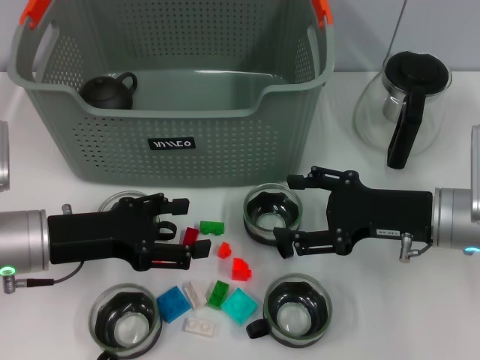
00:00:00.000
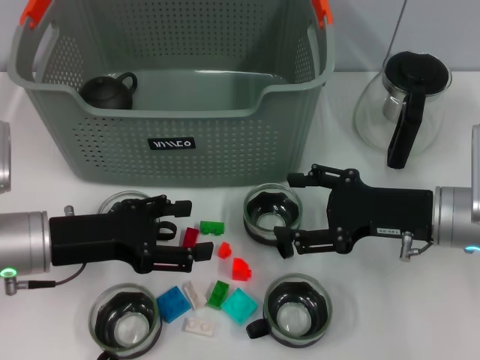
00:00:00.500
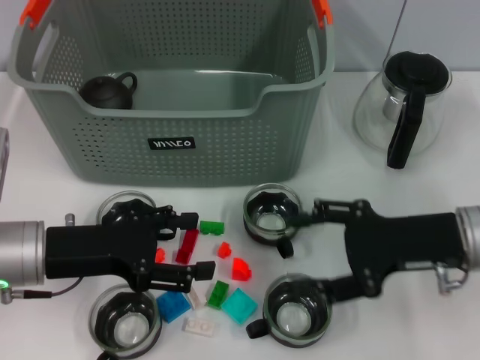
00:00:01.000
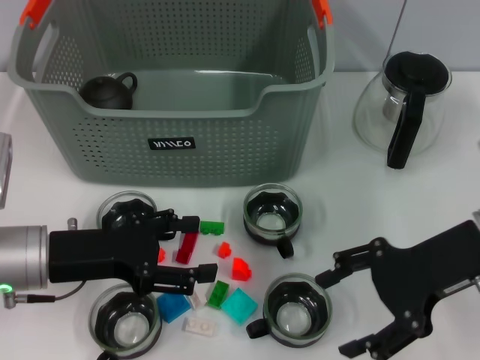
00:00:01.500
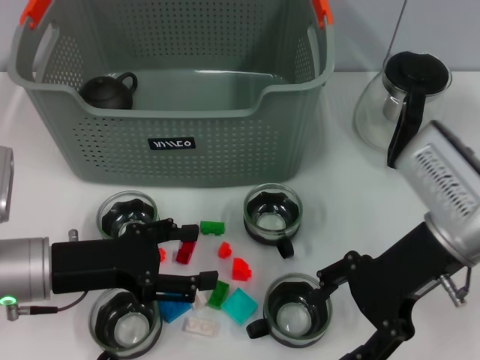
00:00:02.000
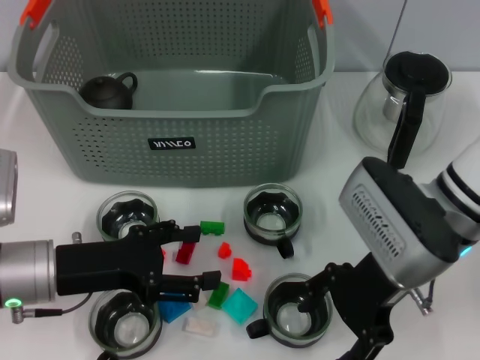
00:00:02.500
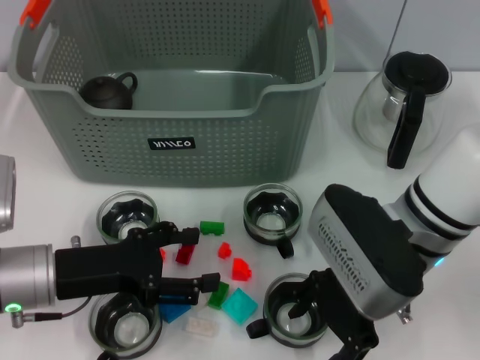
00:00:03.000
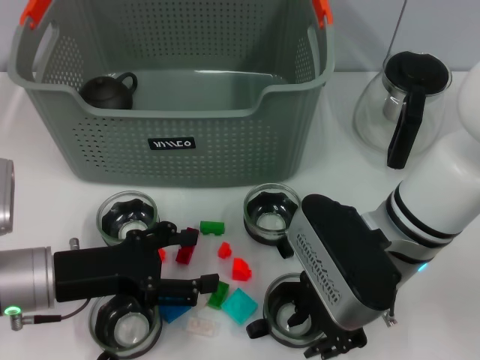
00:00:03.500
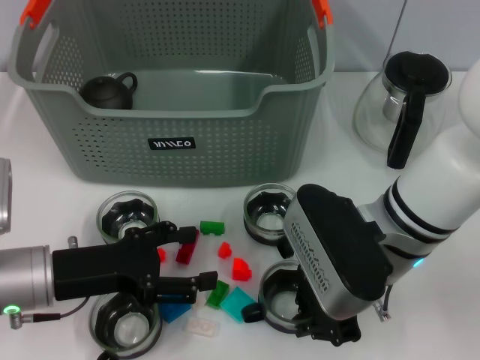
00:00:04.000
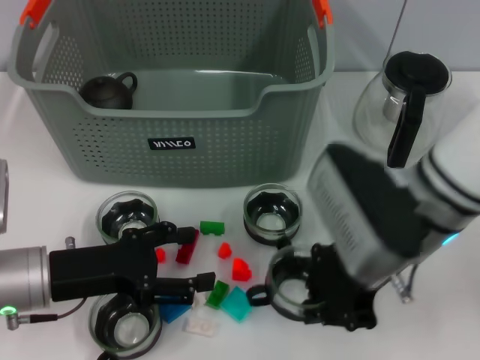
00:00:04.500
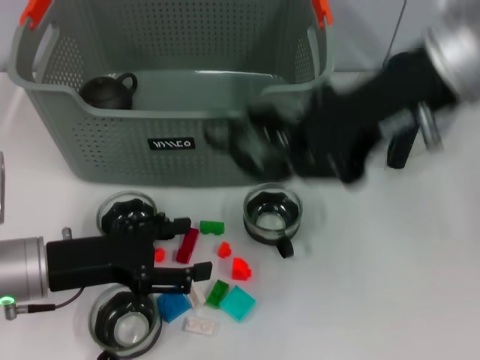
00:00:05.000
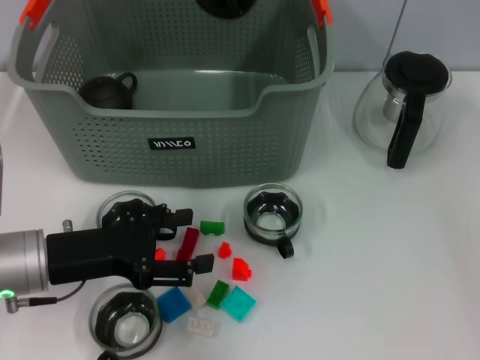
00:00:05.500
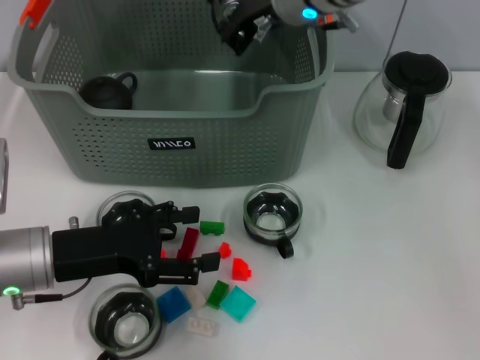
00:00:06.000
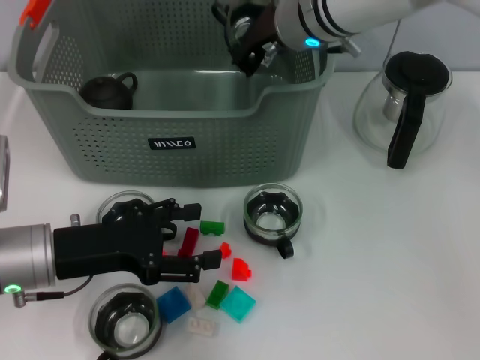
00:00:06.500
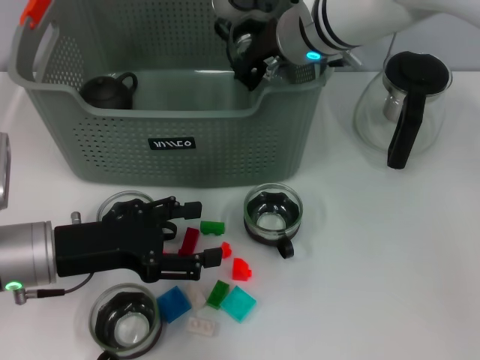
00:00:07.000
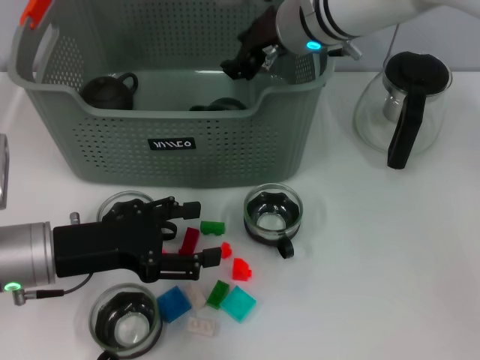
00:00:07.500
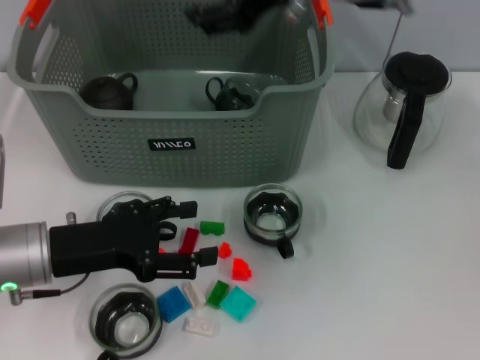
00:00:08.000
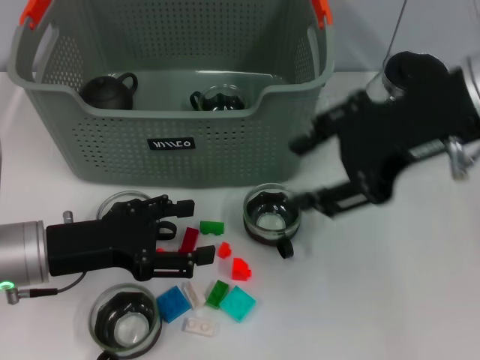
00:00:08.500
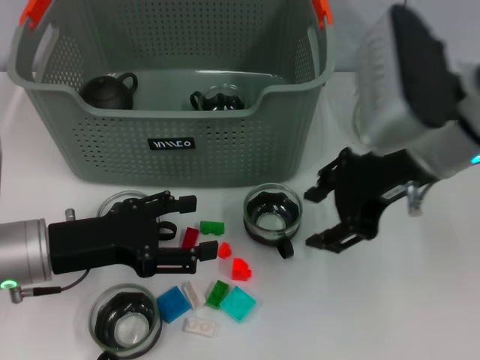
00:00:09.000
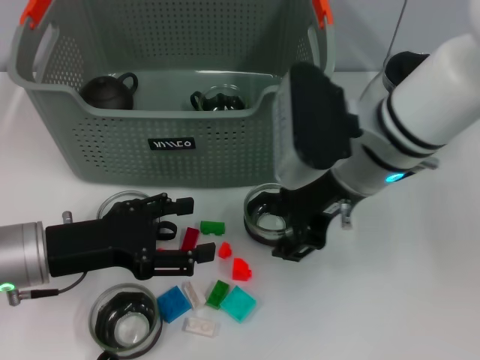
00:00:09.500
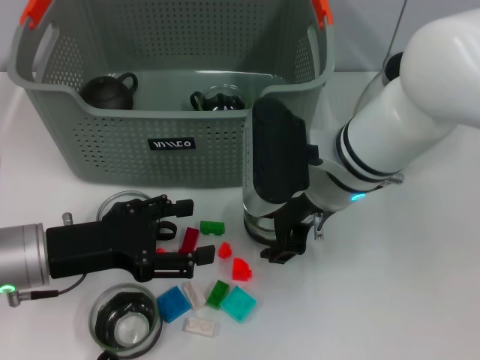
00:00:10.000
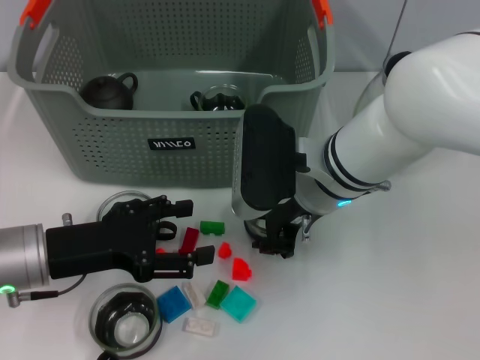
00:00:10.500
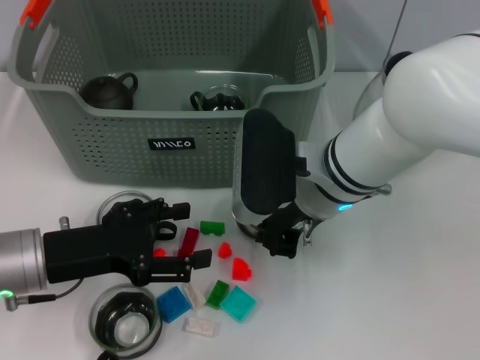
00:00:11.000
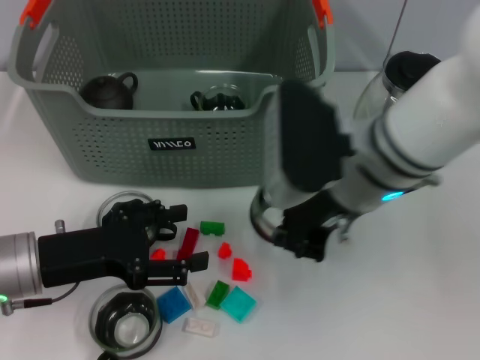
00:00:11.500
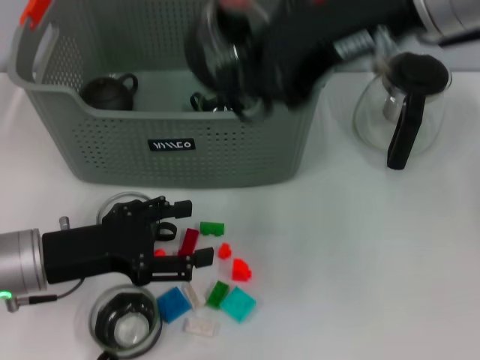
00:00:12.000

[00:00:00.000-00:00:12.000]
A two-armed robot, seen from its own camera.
Task of the whole recording: pick up the teacup on the table and place it into the storage bin, pick up the block on the table and place it into the storage bin.
Step, 00:00:00.000 to 00:00:03.500: Grasp the cup with right gripper.
Step, 00:00:04.000 to 00:00:08.000: Place the cup in the storage box with right gripper.
Step, 00:00:08.500 to 00:00:10.500: Grasp the cup with right gripper.
00:00:00.000 to 00:00:02.000: The right gripper moves upward, about 5 cm.
00:00:02.000 to 00:00:04.000: The right gripper shifts about 10 cm to the left, and closes up.
00:00:04.000 to 00:00:06.000: The right gripper heads forward and upward, covering some 20 cm.
00:00:06.000 to 00:00:08.000: The right gripper heads backward and upward, covering approximately 10 cm, and opens up.
00:00:08.000 to 00:00:10.000: The right gripper shifts approximately 15 cm downward.
00:00:10.000 to 00:00:12.000: The right gripper travels upward by about 20 cm, and closes up.

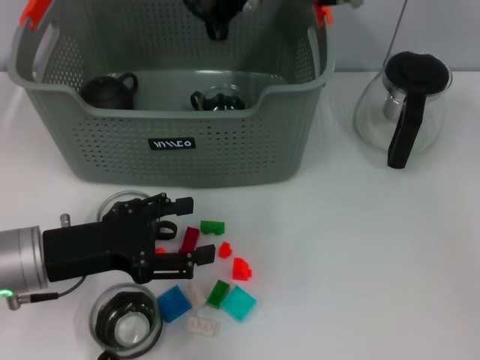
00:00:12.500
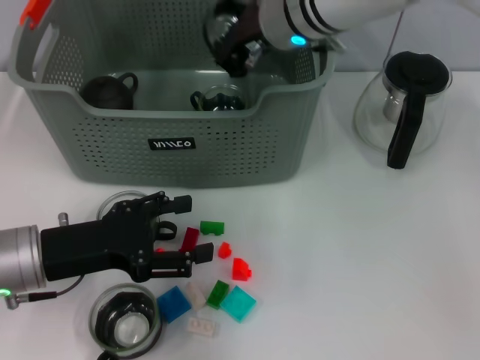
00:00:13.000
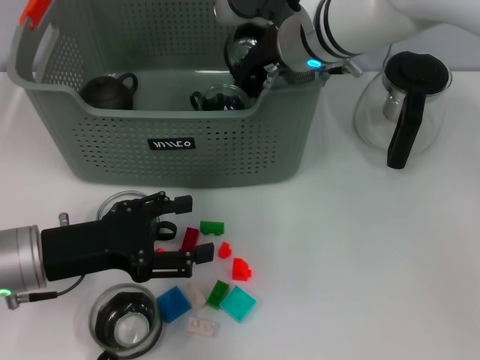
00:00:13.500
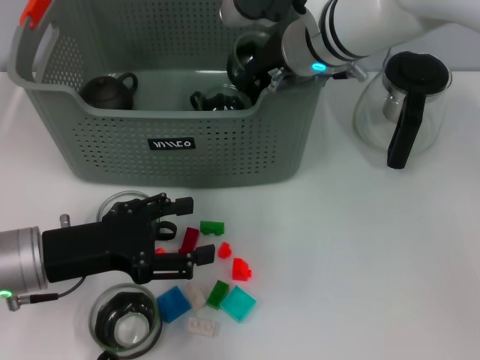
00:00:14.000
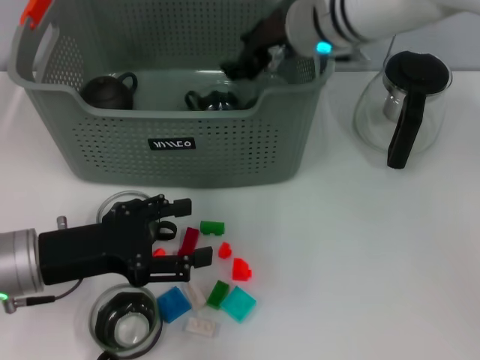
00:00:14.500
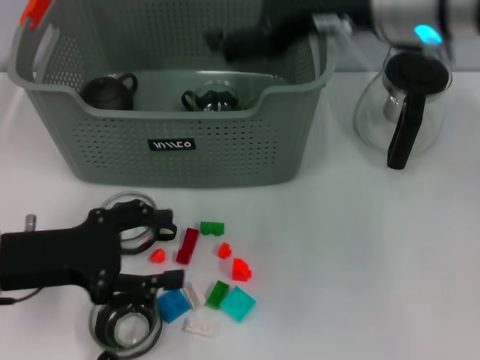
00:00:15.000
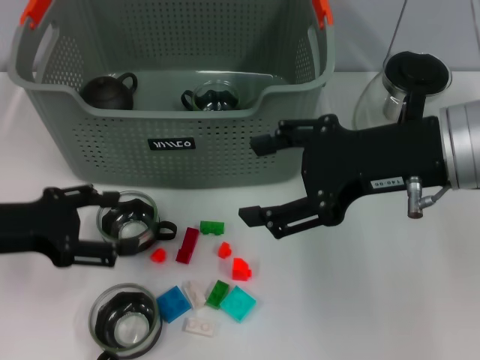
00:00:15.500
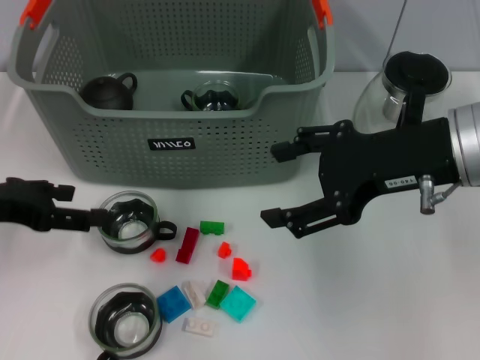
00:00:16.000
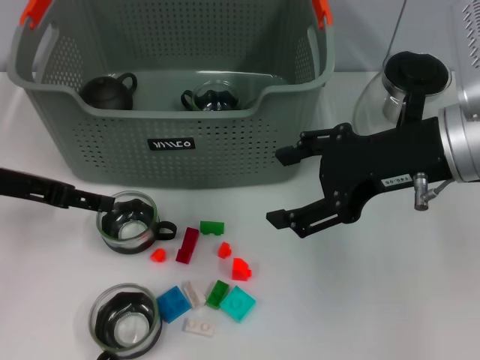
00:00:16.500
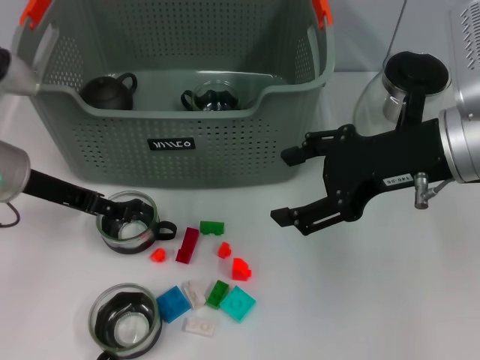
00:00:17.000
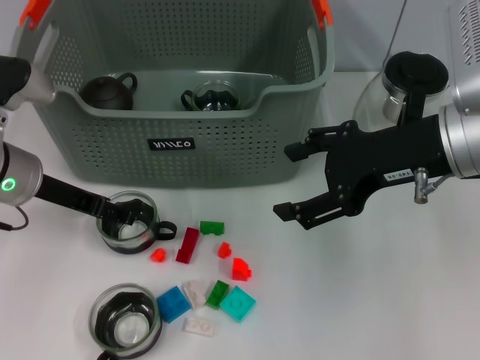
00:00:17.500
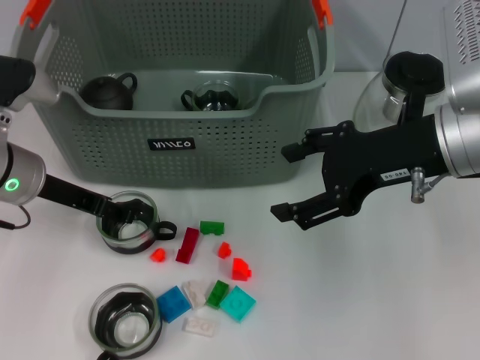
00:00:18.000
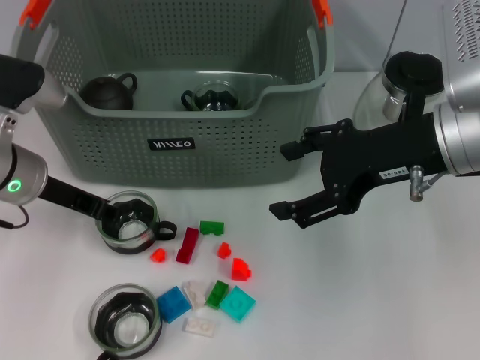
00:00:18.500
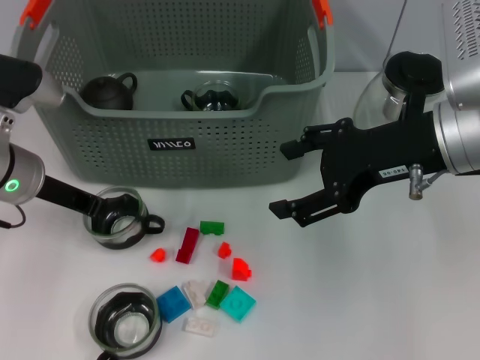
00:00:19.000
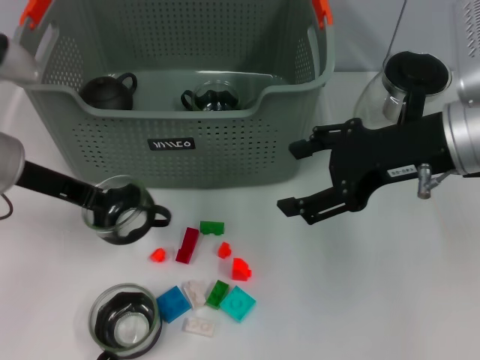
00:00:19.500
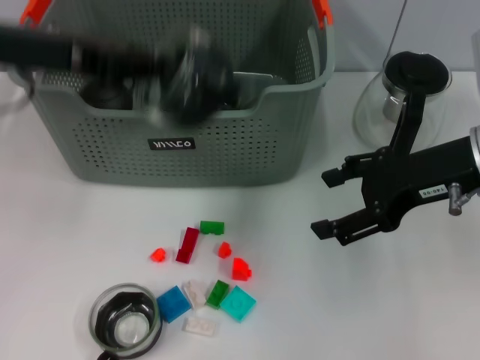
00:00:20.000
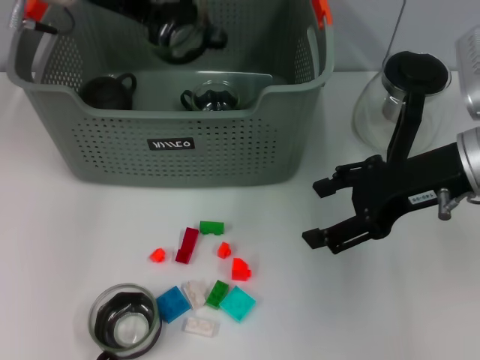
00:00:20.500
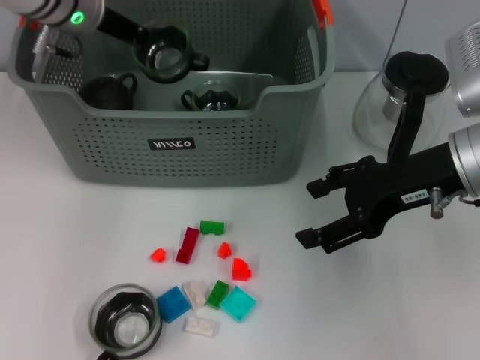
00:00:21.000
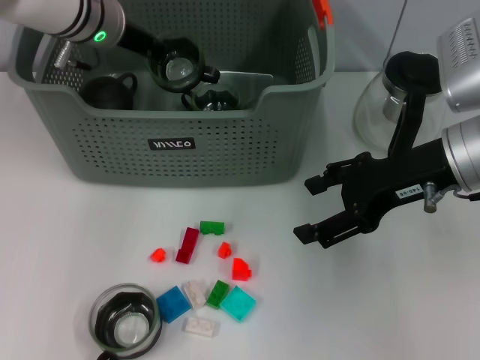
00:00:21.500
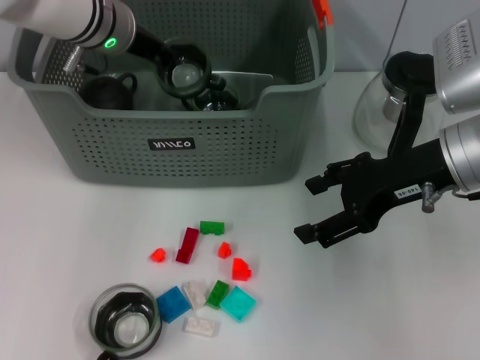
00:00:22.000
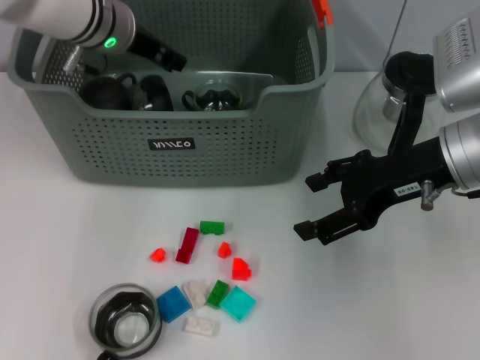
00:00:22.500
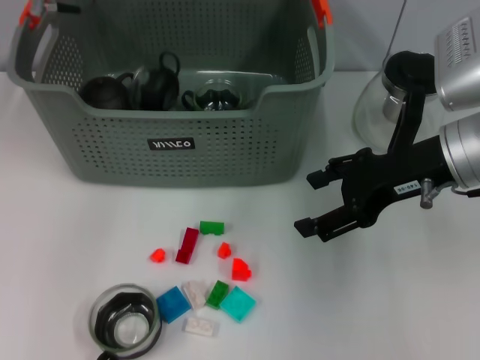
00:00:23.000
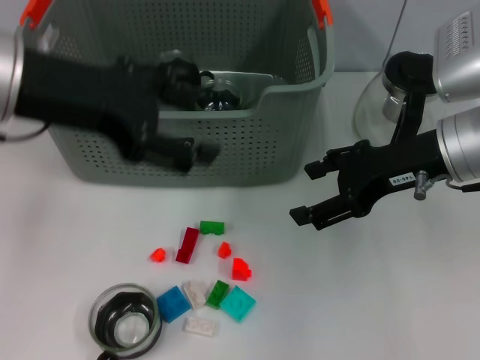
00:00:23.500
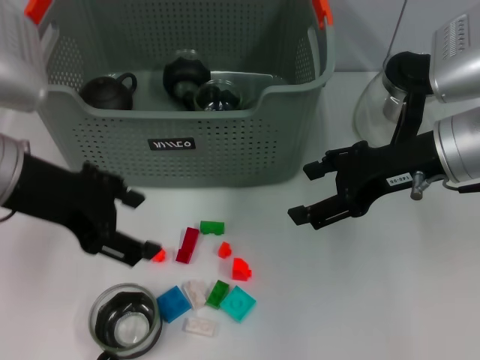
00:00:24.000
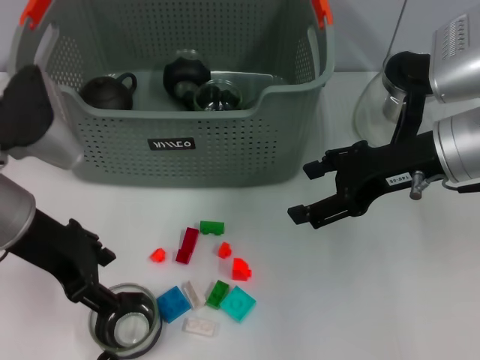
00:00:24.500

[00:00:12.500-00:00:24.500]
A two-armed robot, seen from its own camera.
Task of the whole recording: pick up the teacup on the table and place it into the storage bin, pick up the block on the table and place it into the storage bin.
Step, 00:00:12.500 to 00:00:14.500: Place the cup in the storage box with right gripper.
Step, 00:00:15.000 to 00:00:18.500: Grasp the cup with left gripper.
Step, 00:00:19.500 to 00:00:22.500: Place the cup in the storage box with left gripper.
00:00:12.500 to 00:00:14.500: The right gripper shifts roughly 5 cm downward, and opens its fingers.
00:00:14.500 to 00:00:16.500: The right gripper heads backward and to the right, covering some 20 cm, and opens, while the left gripper goes approximately 10 cm upward and forward.
00:00:16.500 to 00:00:18.500: The left gripper changes place by about 5 cm, and closes.
00:00:18.500 to 00:00:20.500: The left gripper shifts roughly 15 cm upward and forward, and closes up.
00:00:20.500 to 00:00:22.500: The left gripper goes approximately 5 cm downward, and opens up.
00:00:22.500 to 00:00:24.500: The left gripper heads backward, covering roughly 20 cm, and opens.

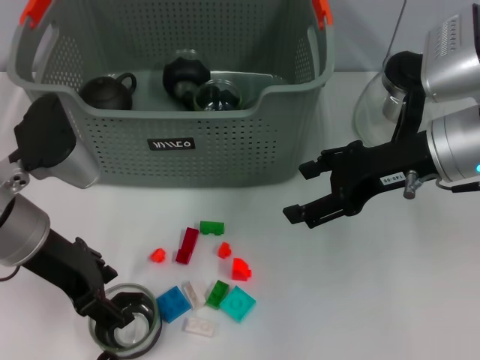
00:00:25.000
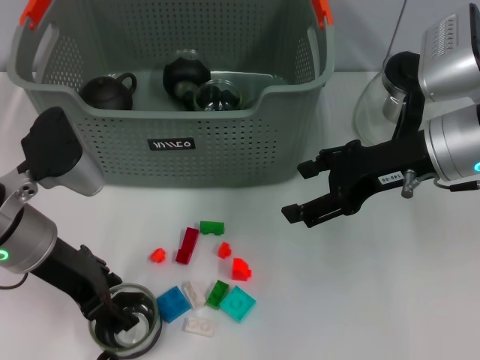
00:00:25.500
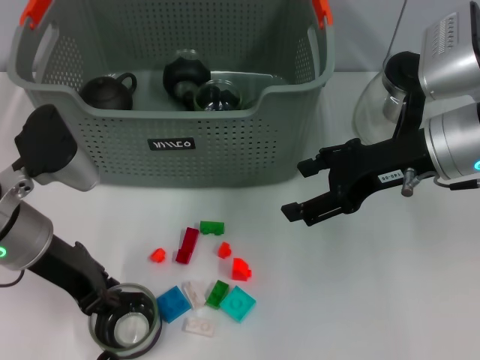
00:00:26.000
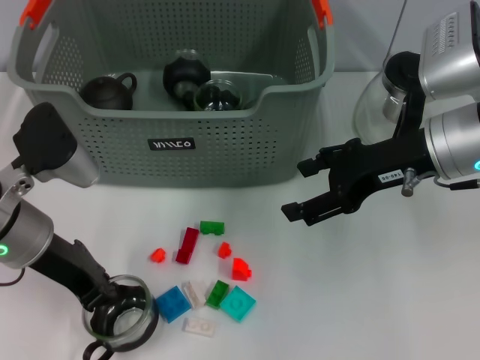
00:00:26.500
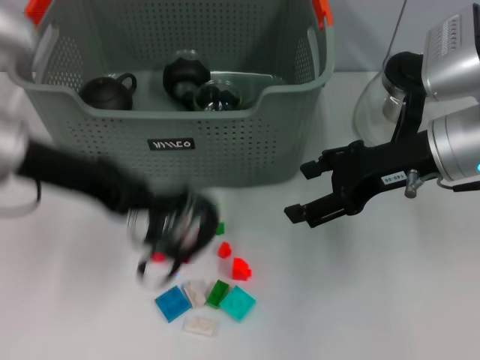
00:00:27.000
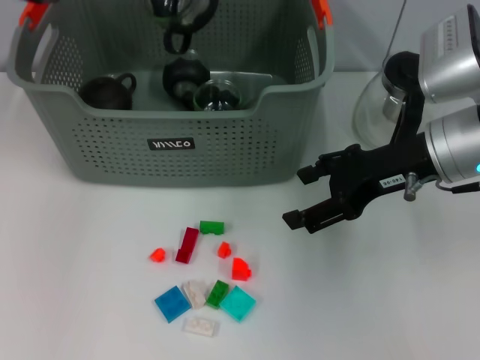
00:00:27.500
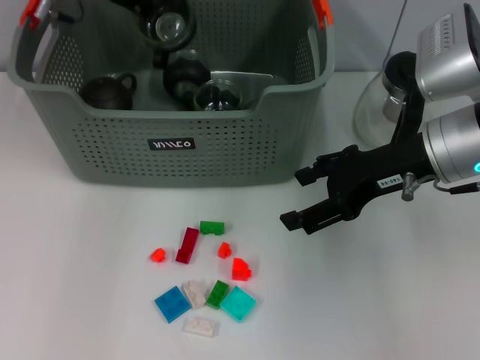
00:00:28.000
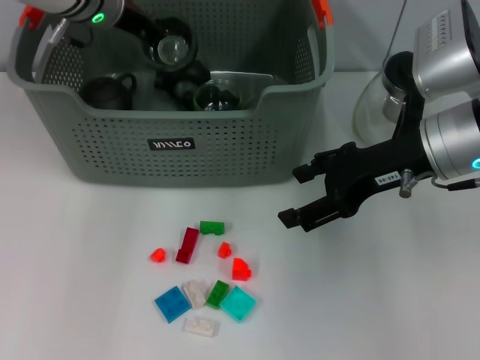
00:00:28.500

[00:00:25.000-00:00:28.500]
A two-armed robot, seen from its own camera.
Task of the whole recording: pick up the teacup on the table and place it into the storage bin, pick up the block on the table and place it into the storage bin.
00:00:25.000 to 00:00:27.000: The left gripper goes about 10 cm upward, and closes up.
00:00:27.000 to 00:00:28.500: The left gripper shifts roughly 15 cm forward.
